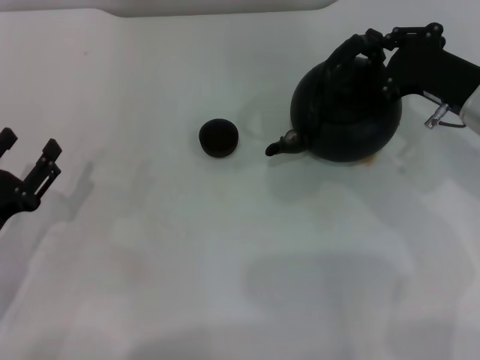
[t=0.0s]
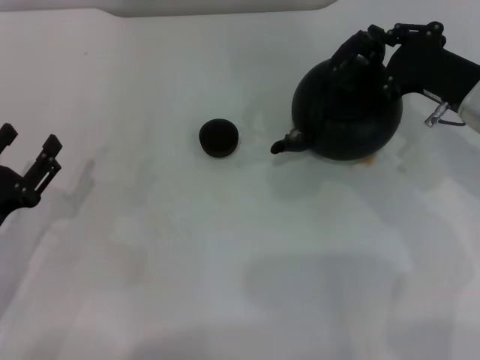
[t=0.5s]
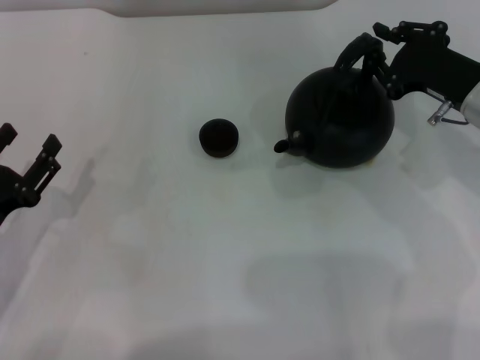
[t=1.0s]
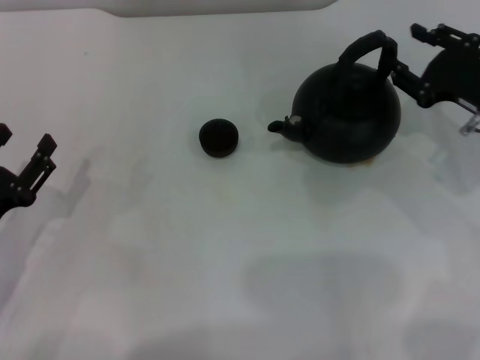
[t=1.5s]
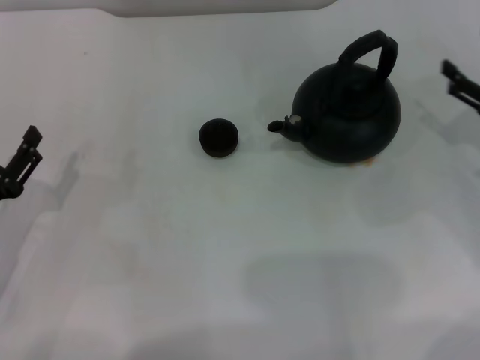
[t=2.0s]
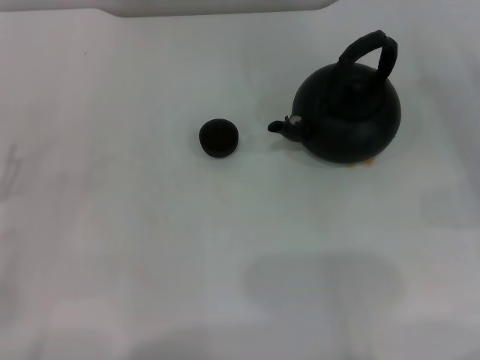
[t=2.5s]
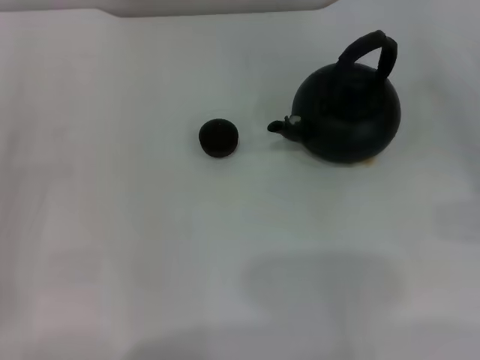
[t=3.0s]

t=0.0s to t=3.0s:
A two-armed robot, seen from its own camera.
Task of the whole recording: Grasp the handle of the teapot with one hand and pour tea into the teacup.
t=0.0s to t=1.5s: The right gripper opens its fingers.
t=1.5s to t=3.0s: The left gripper travels to the left by some 5 cm; the right gripper travels to the right and backward by some 15 cm, and opens.
